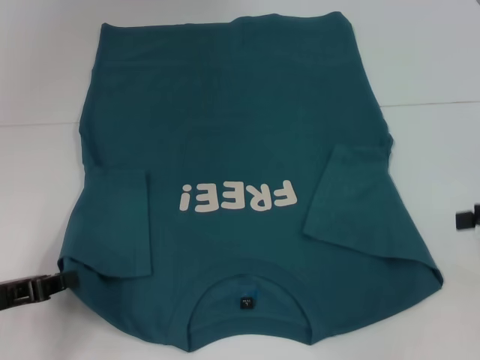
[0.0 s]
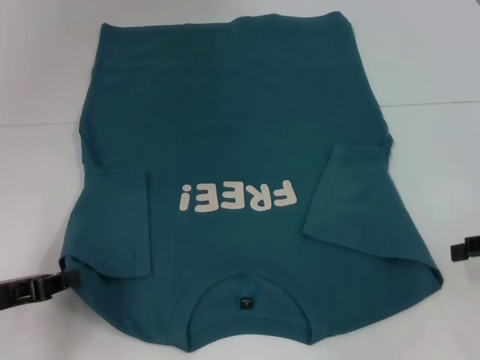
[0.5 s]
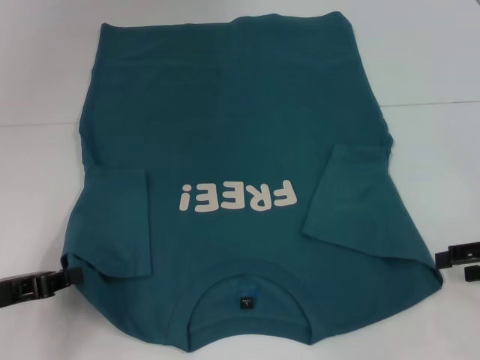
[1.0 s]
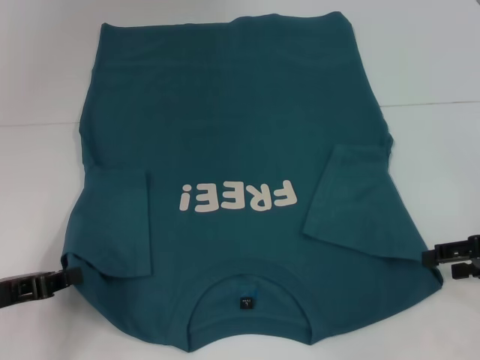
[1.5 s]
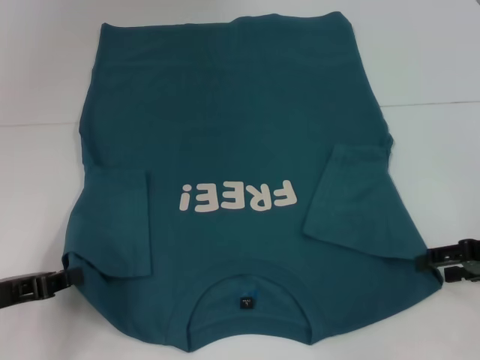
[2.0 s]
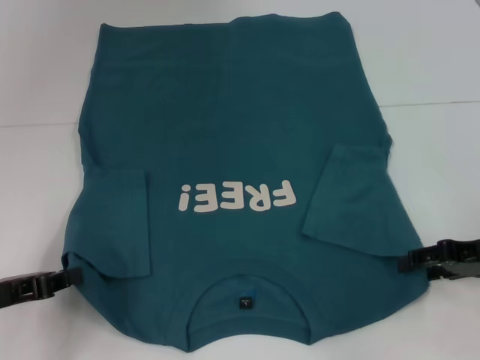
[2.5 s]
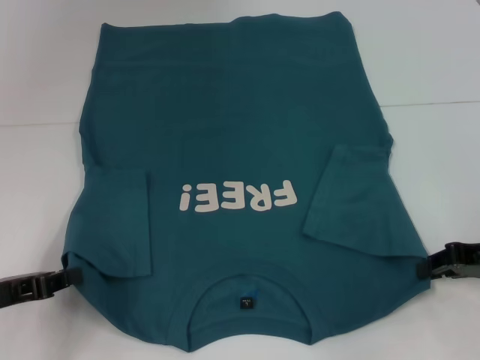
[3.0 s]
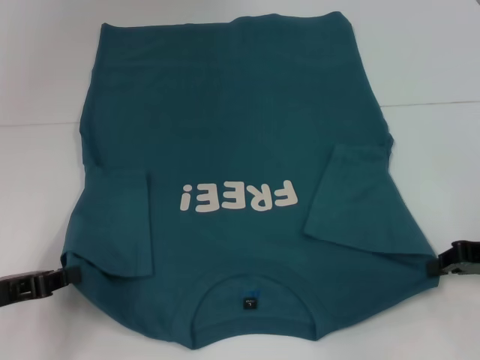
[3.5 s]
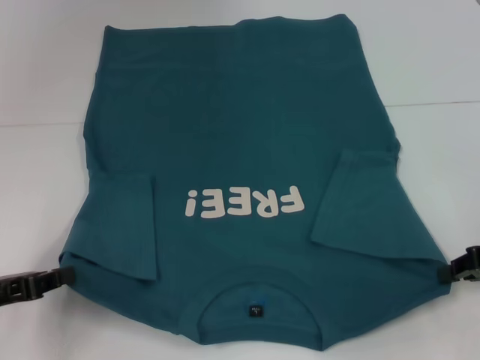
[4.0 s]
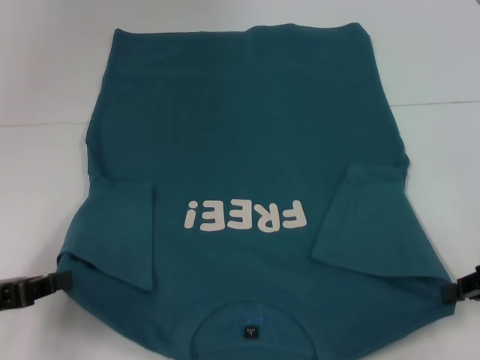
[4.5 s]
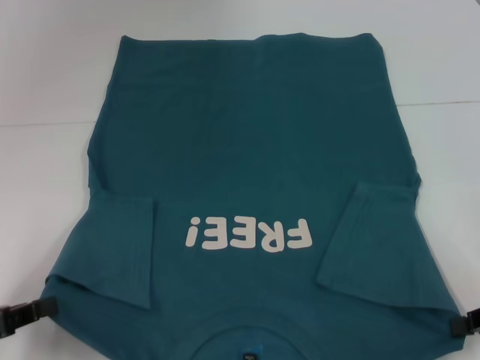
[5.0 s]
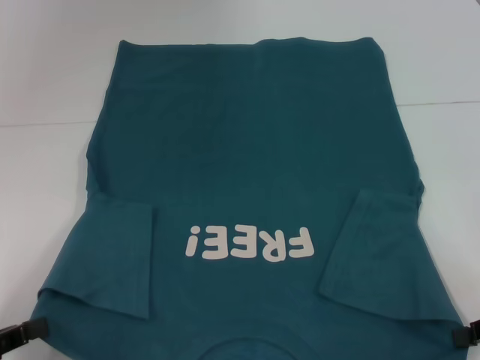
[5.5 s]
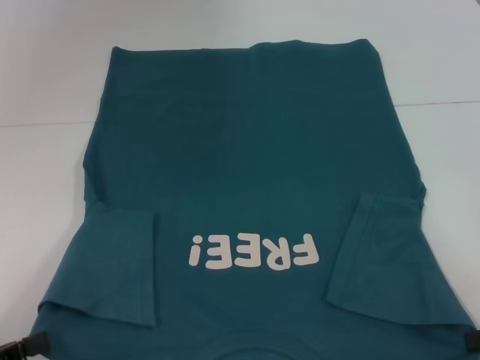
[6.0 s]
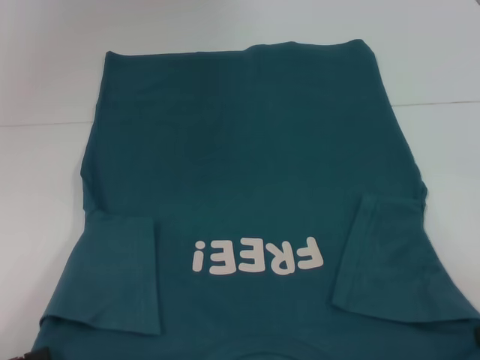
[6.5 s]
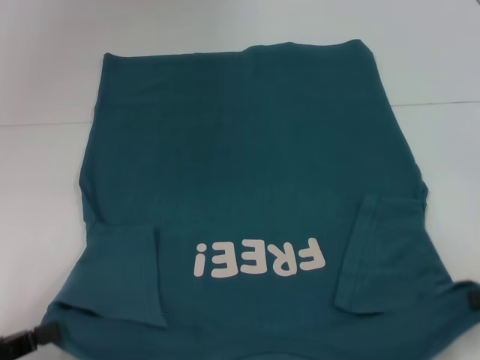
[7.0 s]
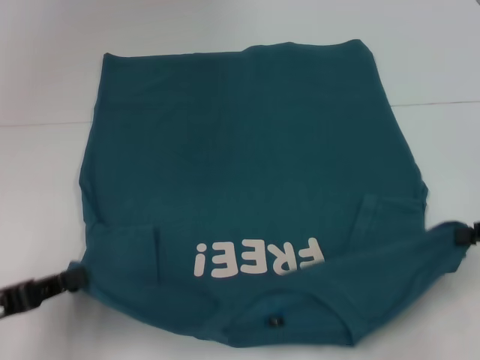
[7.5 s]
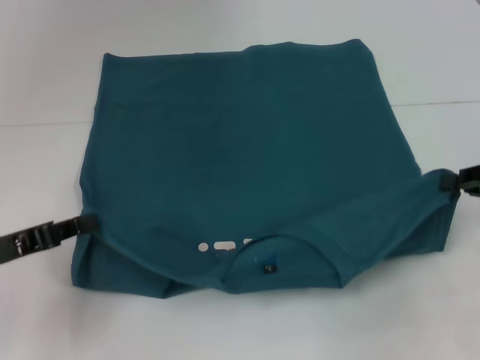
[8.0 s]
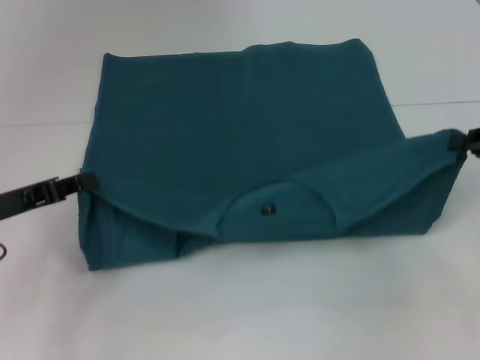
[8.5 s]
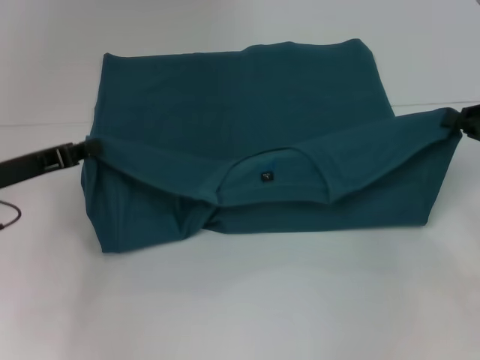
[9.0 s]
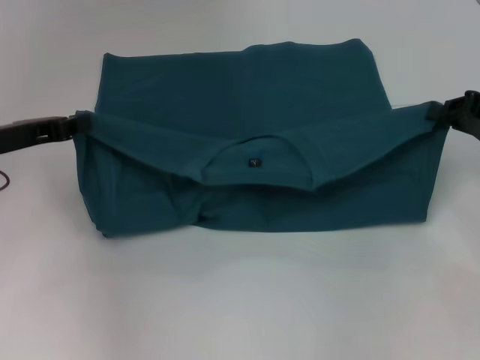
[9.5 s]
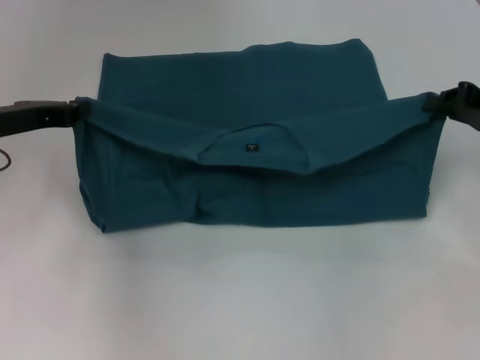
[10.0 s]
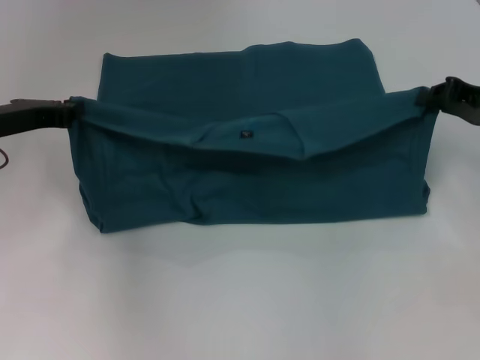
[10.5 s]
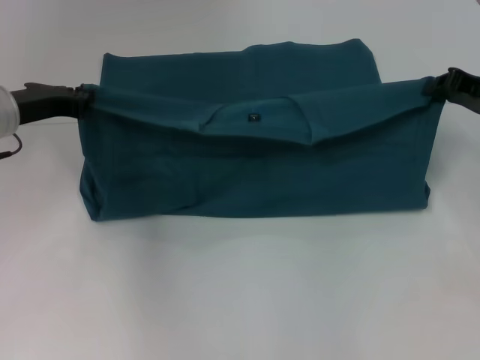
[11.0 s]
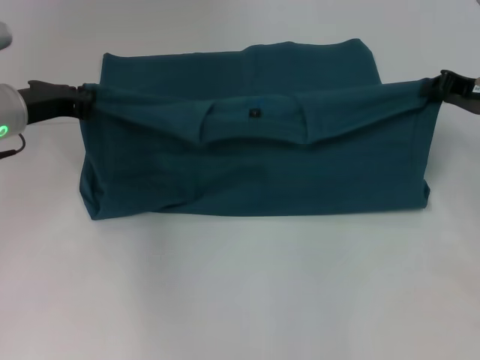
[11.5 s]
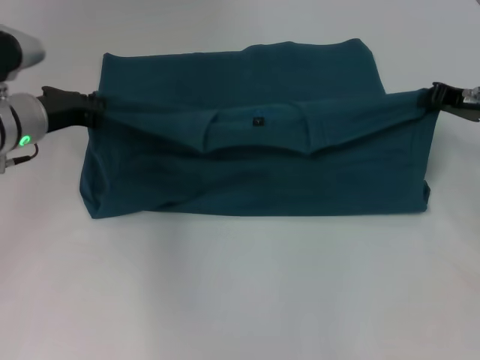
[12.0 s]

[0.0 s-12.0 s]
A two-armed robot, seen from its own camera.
Step, 0.0 to 4.0 s: Grab the bottom right corner with your right hand.
0.0 to 2.0 s: The right gripper travels downward by approximately 5 cm.
2.0 to 4.0 s: The right gripper closes.
4.0 to 6.0 s: Both grippers move backward, some 10 cm.
6.0 to 8.0 s: Both grippers move forward, about 10 cm.
8.0 to 10.0 s: The left gripper heads forward and upward, covering approximately 15 cm. The right gripper moves forward, roughly 5 cm.
10.0 to 12.0 s: The left gripper ends up approximately 5 cm from where it was. Meanwhile the right gripper ends up roughly 5 cm from where it was.

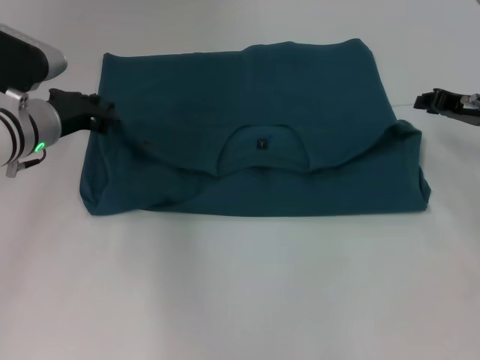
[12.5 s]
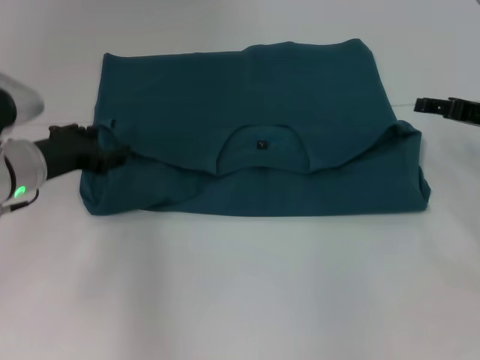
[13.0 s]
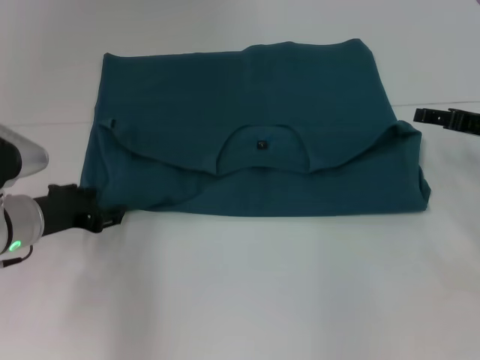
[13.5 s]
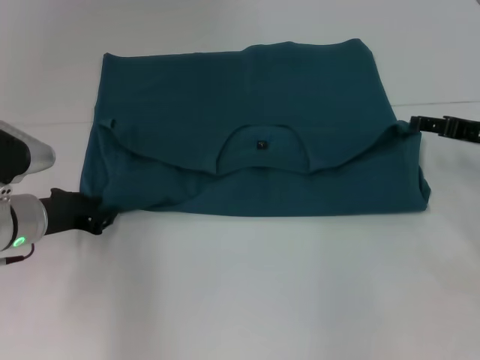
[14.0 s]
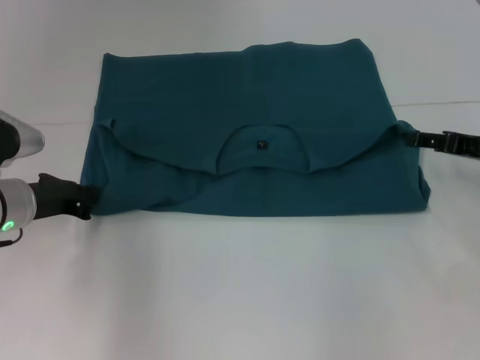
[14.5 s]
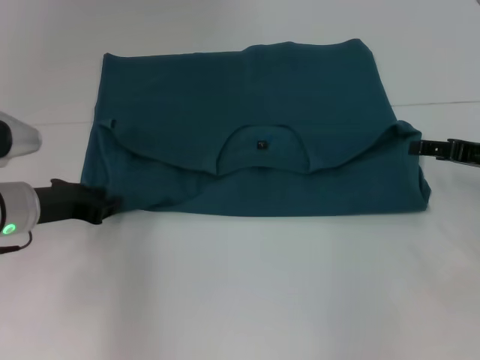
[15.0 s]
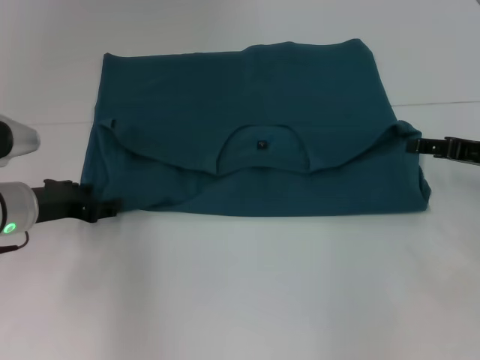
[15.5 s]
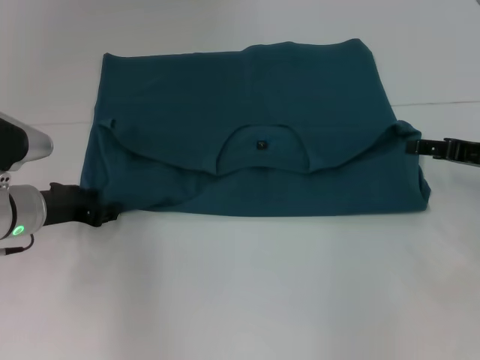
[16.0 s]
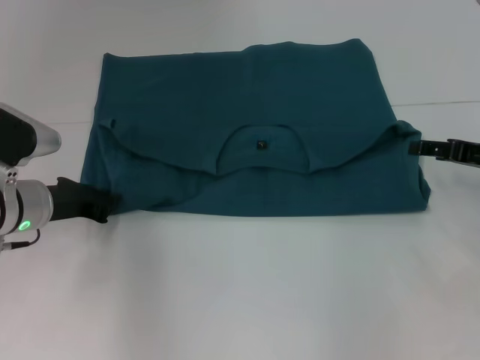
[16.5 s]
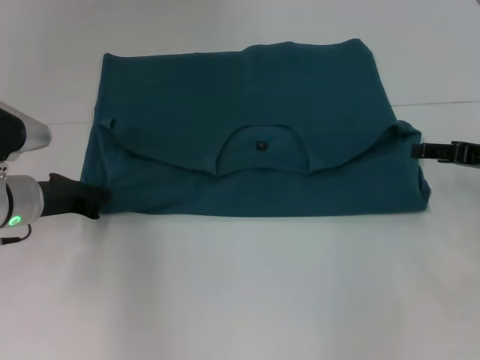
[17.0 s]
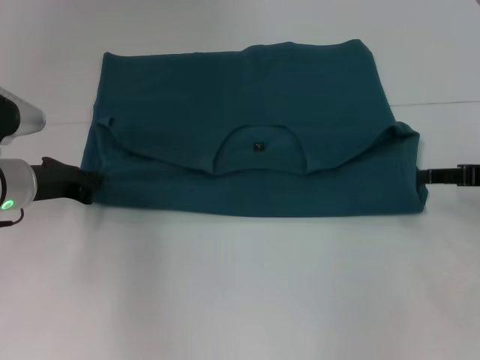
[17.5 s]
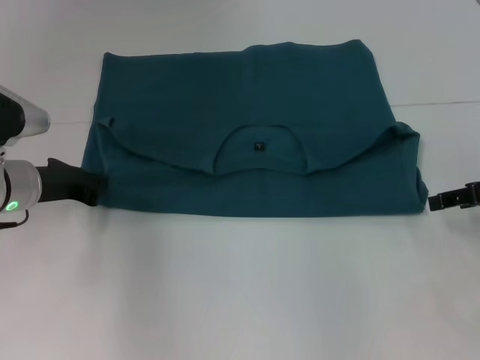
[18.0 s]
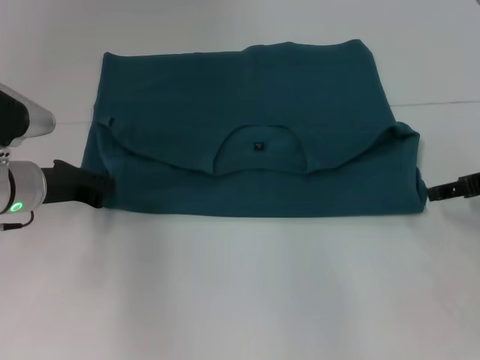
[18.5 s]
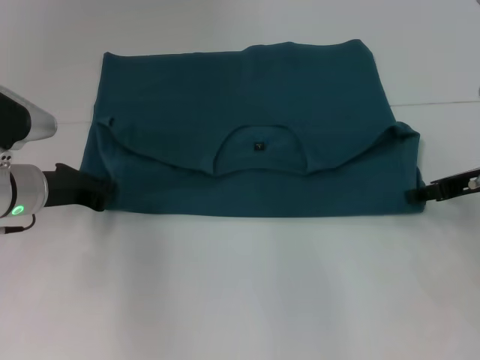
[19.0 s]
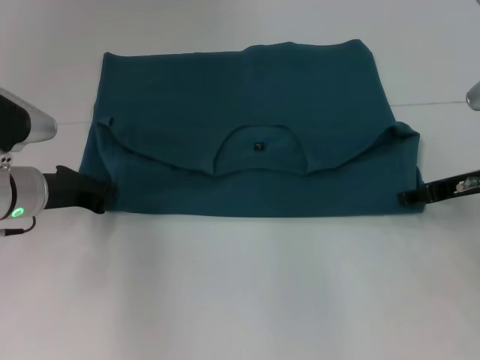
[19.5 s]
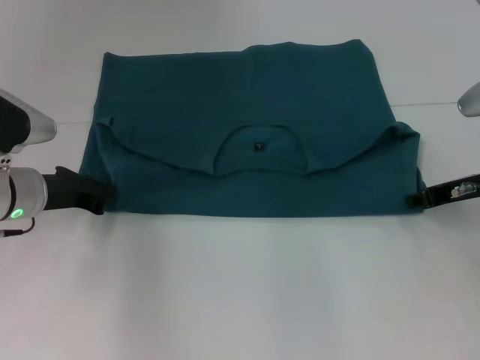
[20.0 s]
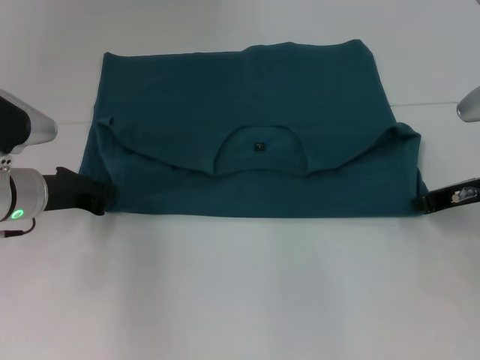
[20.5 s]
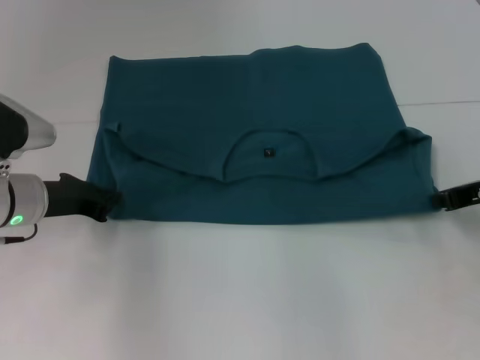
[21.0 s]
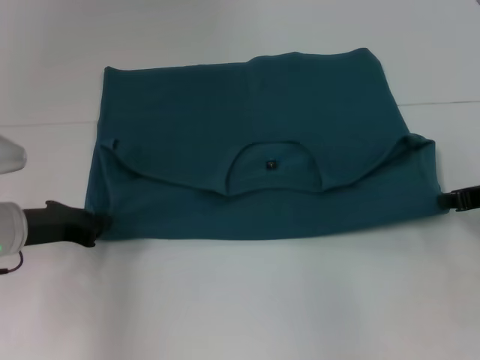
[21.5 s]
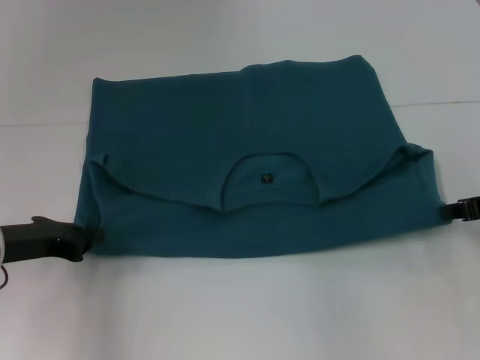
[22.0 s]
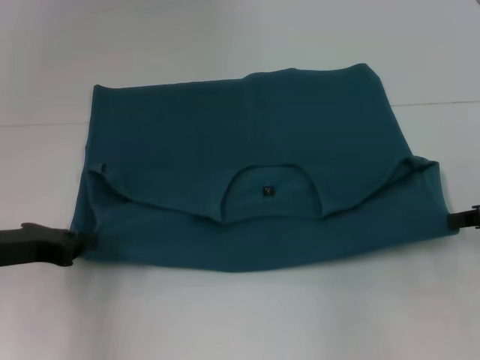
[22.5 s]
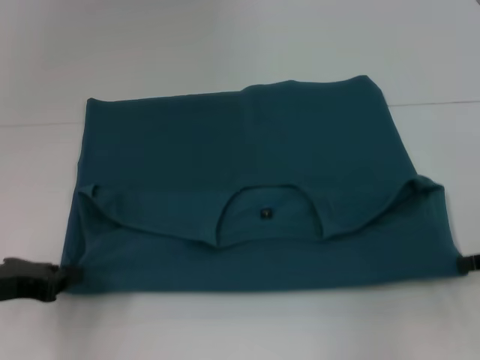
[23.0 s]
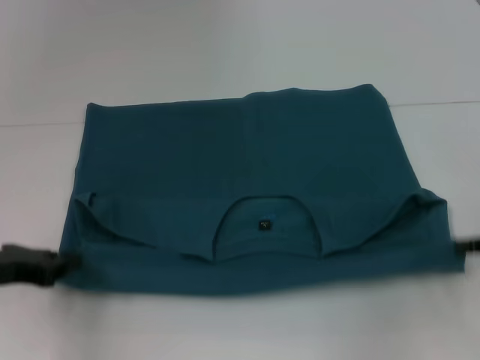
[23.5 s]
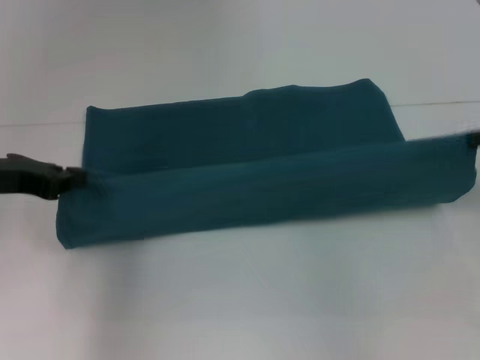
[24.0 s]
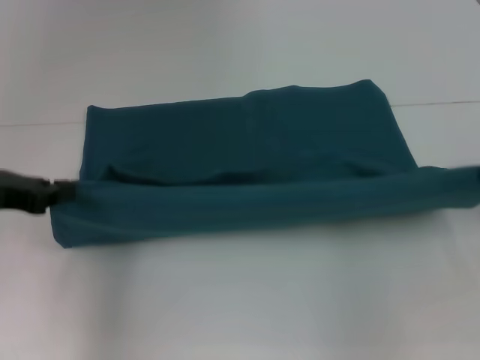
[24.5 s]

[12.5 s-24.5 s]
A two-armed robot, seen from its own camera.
Step, 13.0 to 23.0 s: Pull the clothes with your left hand.
Step, 13.0 to 23.0 s: Pull the clothes with your right hand.
12.5 to 14.5 s: The two grippers go approximately 5 cm backward. The right gripper opens up. Meanwhile the left gripper opens, then closes again.
14.5 to 16.5 s: The left gripper opens, then closes once more.
18.5 to 20.5 s: The right gripper shifts by roughly 5 cm, and closes up.
20.5 to 22.5 s: Both grippers move backward, approximately 5 cm.
22.5 to 24.5 s: Both grippers travel together upward, roughly 5 cm. The left gripper travels forward and back again, roughly 5 cm each way.

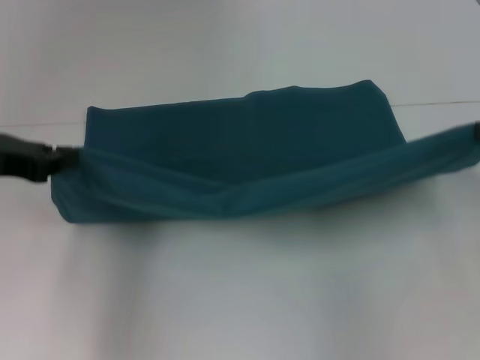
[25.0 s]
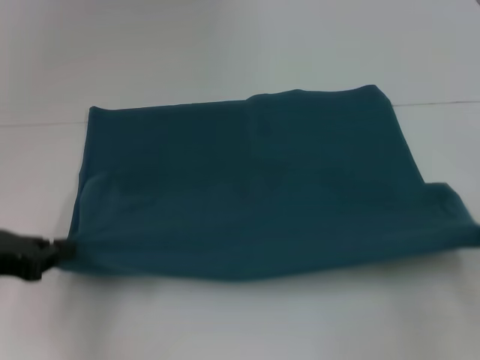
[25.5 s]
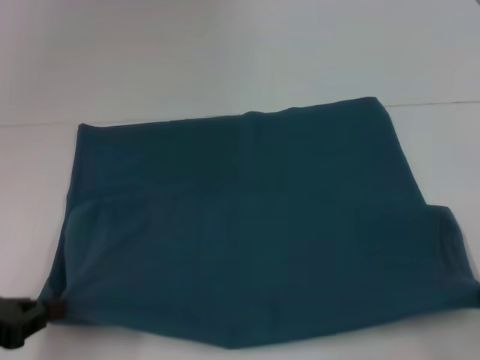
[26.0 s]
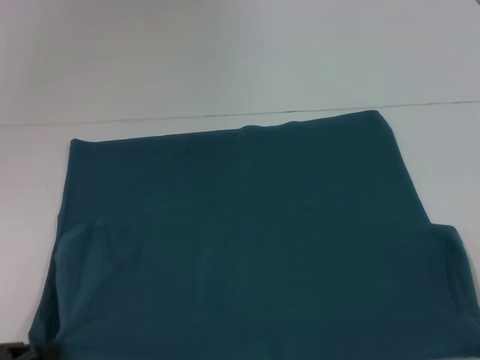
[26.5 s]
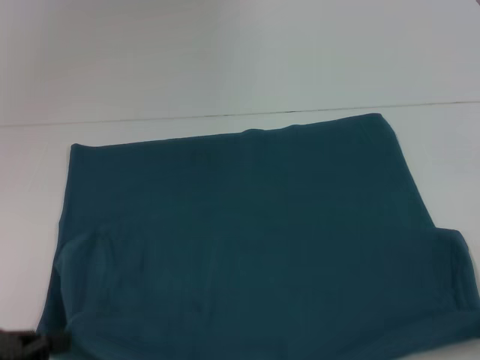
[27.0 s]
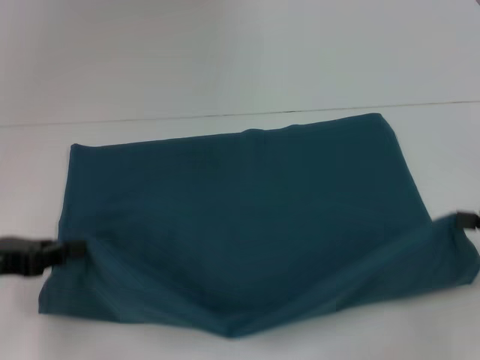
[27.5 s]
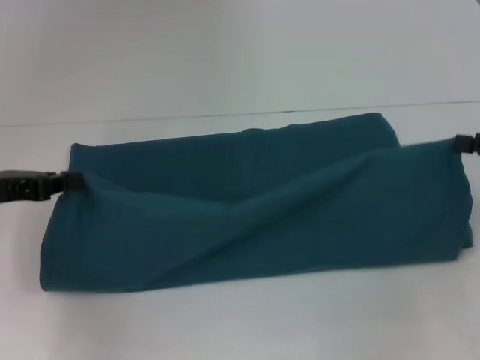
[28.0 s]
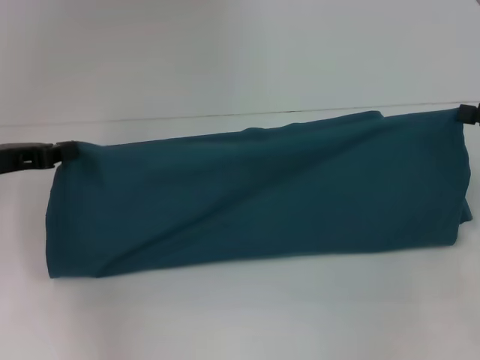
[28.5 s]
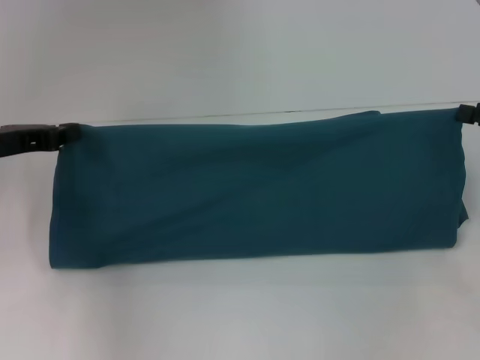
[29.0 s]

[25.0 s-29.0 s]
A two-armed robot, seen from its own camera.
25.0 to 27.0 s: Both grippers travel together backward and downward, about 20 cm.
27.0 to 29.0 s: Both grippers move forward, approximately 20 cm.
